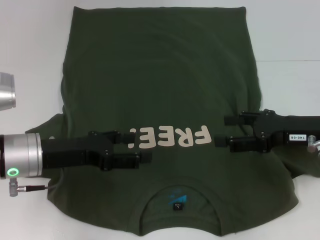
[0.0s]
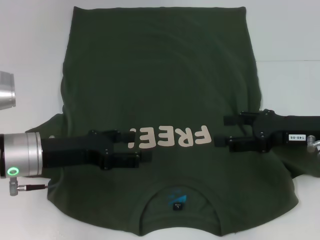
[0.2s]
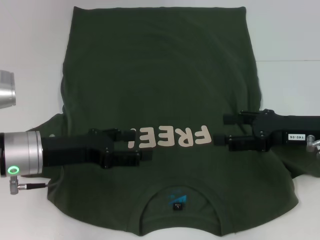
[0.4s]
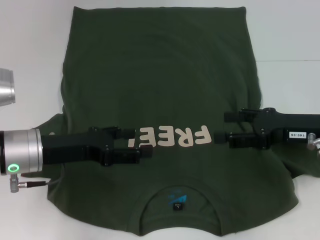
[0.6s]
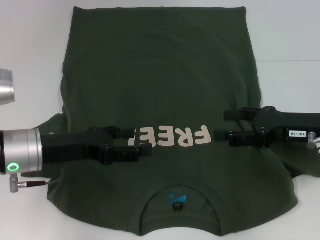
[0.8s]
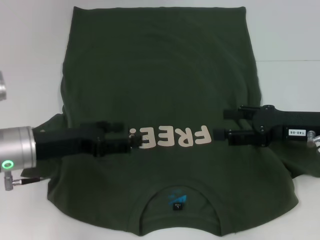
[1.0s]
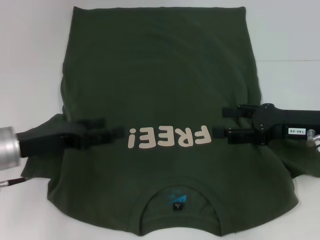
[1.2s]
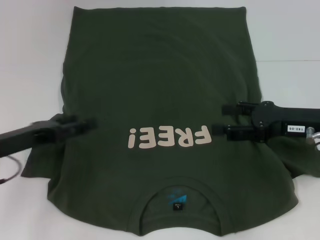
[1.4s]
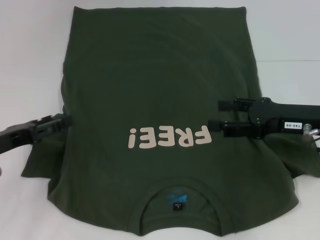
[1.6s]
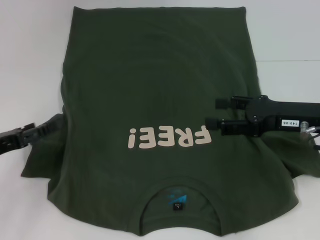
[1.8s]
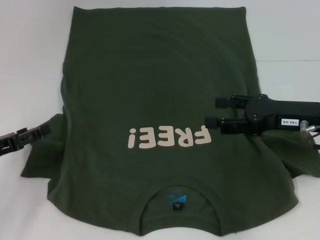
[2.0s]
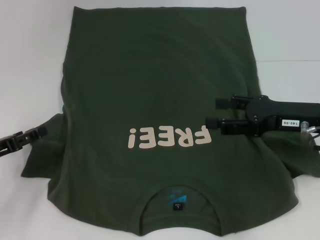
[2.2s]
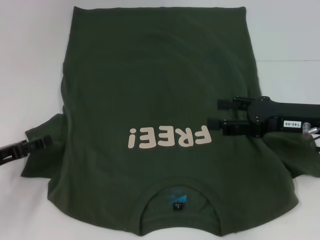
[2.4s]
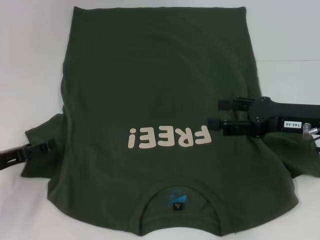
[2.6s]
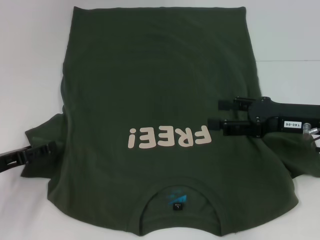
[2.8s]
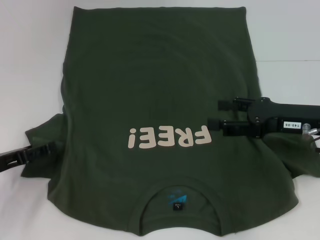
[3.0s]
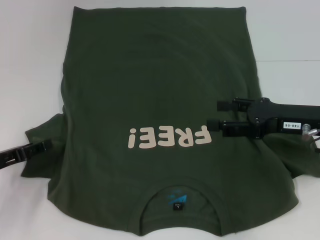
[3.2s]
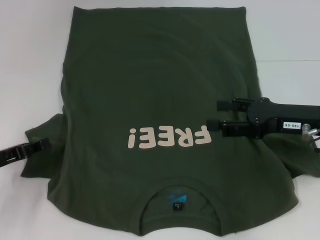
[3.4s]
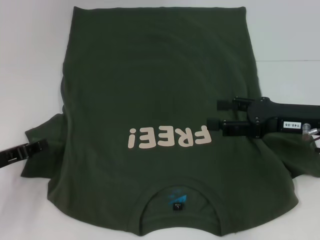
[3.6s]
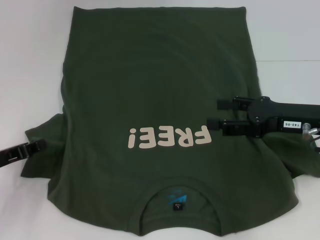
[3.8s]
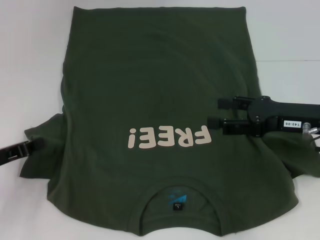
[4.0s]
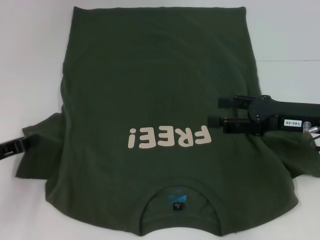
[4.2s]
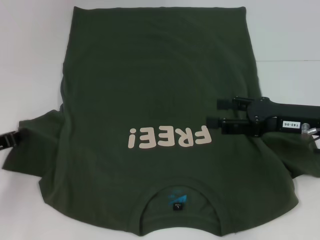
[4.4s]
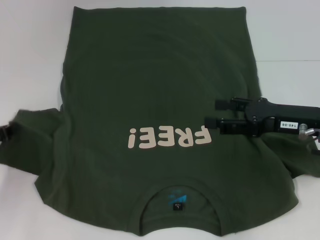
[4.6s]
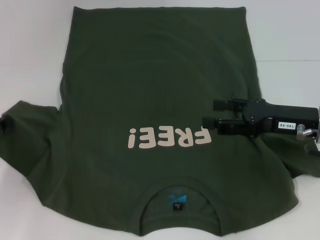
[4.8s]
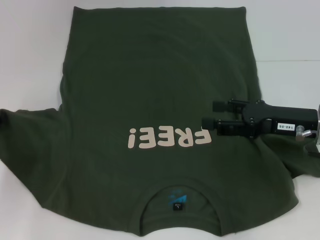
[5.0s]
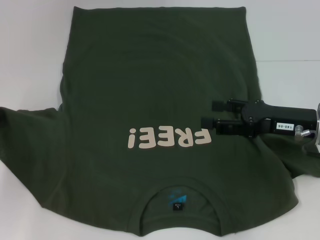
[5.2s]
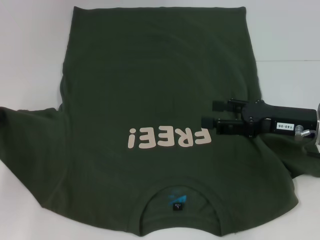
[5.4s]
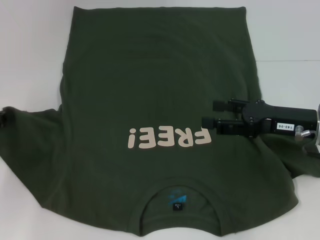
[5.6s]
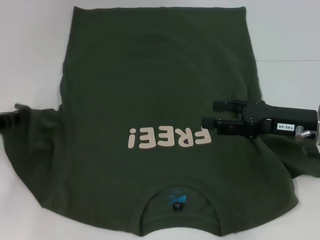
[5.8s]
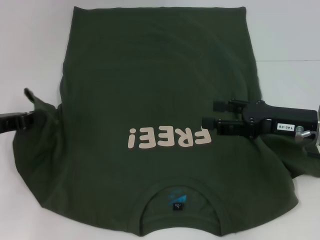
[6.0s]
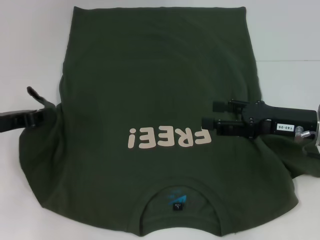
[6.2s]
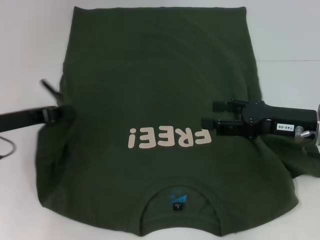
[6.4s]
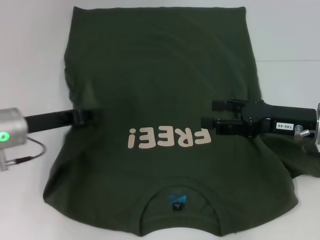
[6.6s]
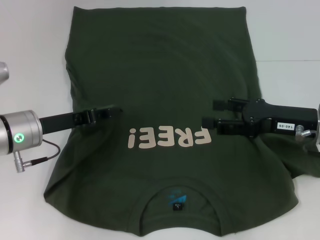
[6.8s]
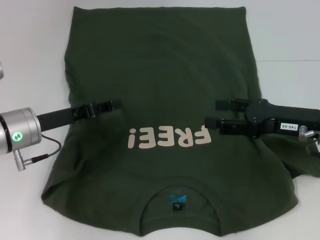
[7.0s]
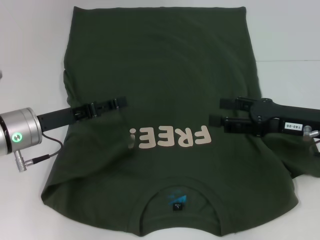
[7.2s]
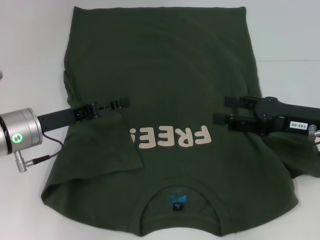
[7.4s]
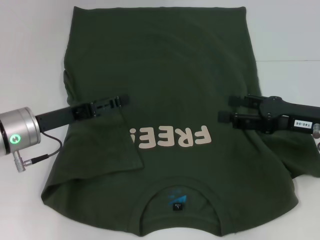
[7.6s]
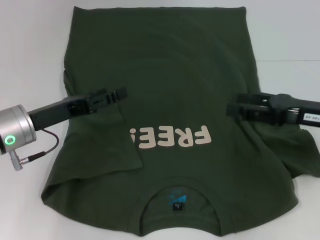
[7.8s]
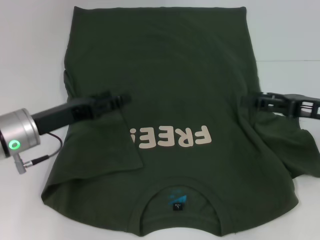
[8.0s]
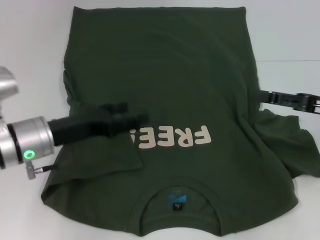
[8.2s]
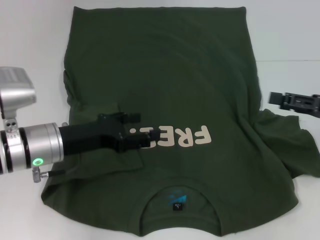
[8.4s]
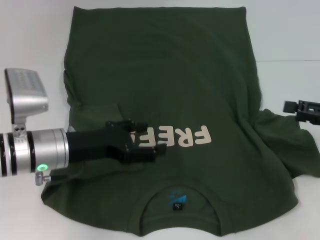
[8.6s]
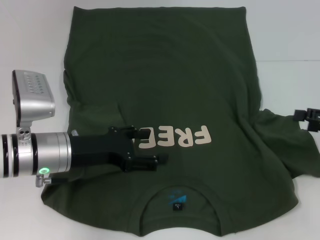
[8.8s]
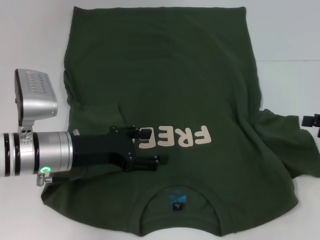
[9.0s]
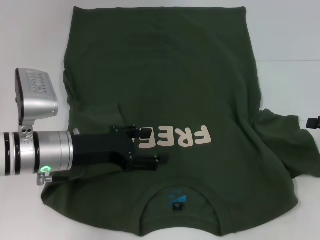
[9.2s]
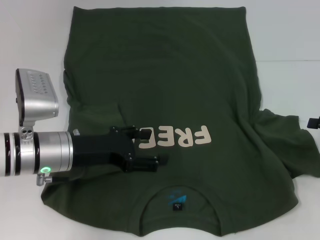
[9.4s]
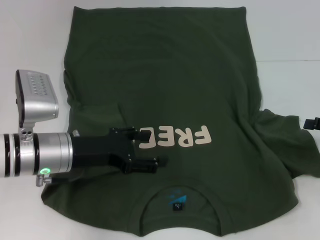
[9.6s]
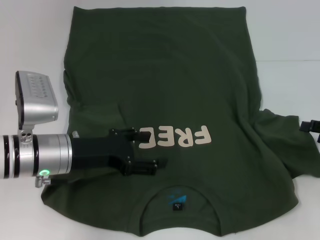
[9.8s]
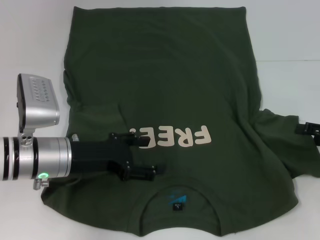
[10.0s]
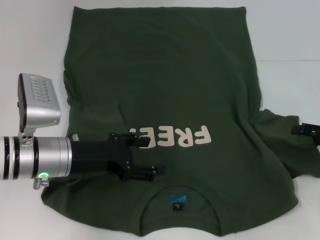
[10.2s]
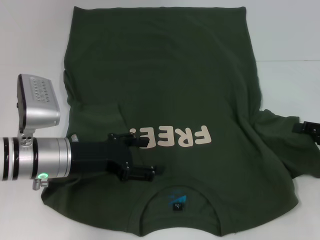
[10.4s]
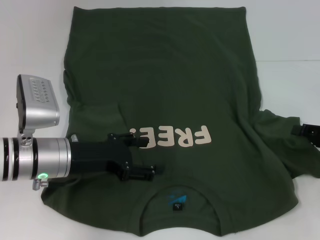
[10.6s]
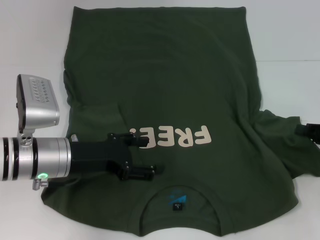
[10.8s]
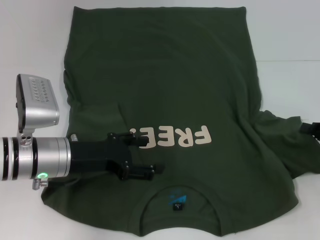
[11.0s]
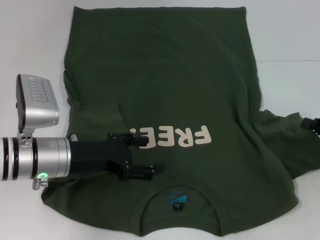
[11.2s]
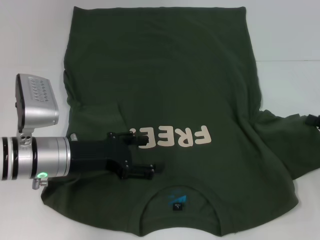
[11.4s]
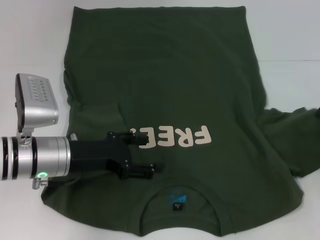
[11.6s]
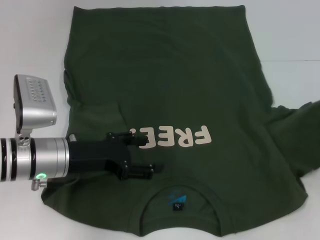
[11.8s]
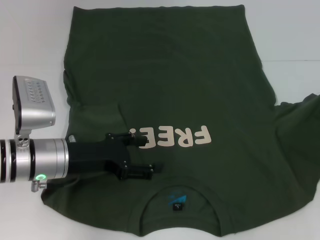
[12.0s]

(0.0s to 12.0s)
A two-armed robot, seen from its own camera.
Step, 0.0s - 7.2s: Fold the bottom left sleeve with your left hand.
0.0s - 1.6s: The left gripper is displaced to the left by roughly 10 cm.
1.6s - 3.0s: The grippers stay close to where they were, moving slightly.
3.0s - 4.4s: The left gripper closes up.
4.4s - 6.0s: The grippers stay close to where they were, moving slightly.
6.0s - 7.6s: The left gripper heads to the right, covering approximately 10 cm, and opens.
7.6s - 9.0s: The right gripper is displaced to the right by roughly 10 cm.
9.0s - 10.4s: The grippers stay close to where they were, moving slightly.
10.4s - 12.0s: The right gripper closes up.

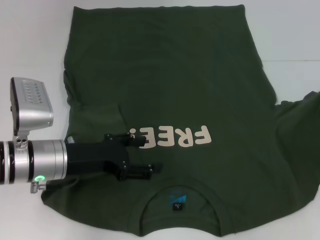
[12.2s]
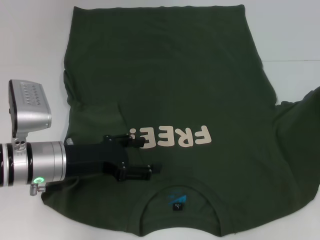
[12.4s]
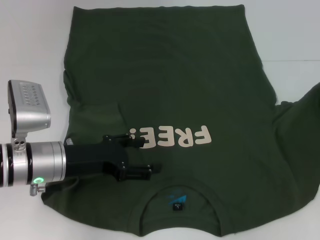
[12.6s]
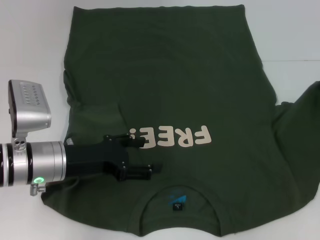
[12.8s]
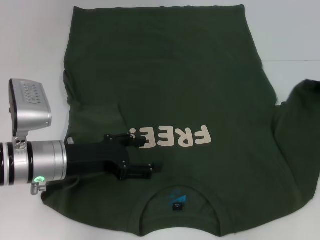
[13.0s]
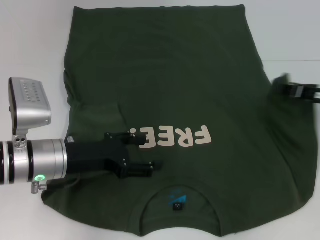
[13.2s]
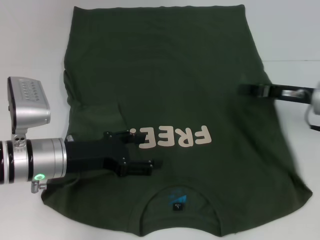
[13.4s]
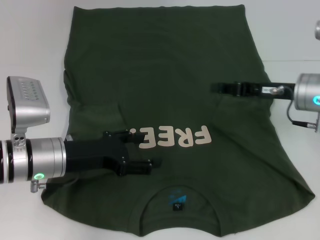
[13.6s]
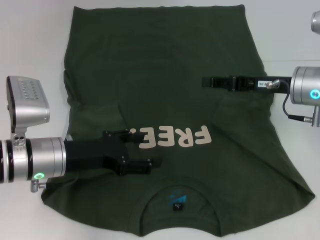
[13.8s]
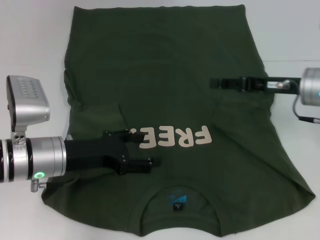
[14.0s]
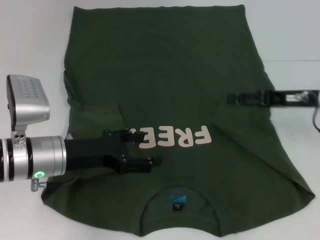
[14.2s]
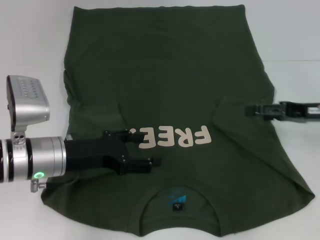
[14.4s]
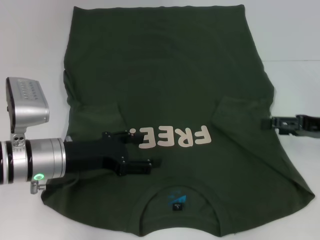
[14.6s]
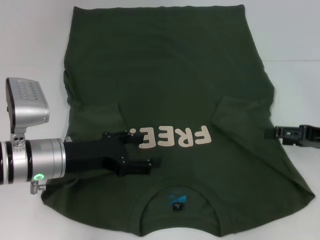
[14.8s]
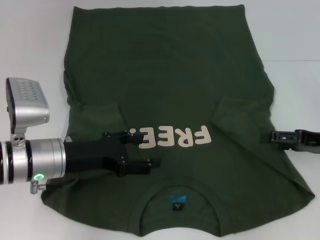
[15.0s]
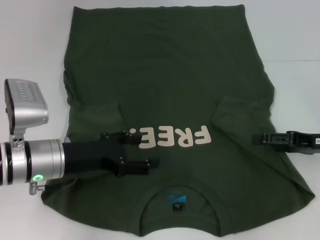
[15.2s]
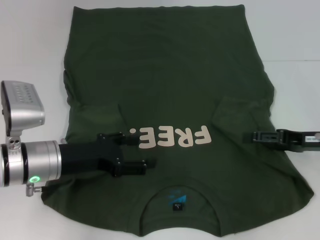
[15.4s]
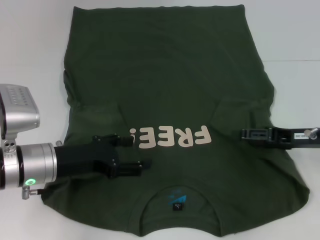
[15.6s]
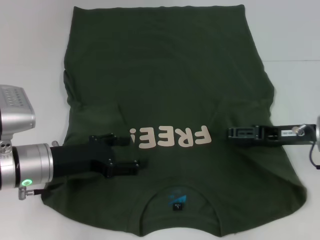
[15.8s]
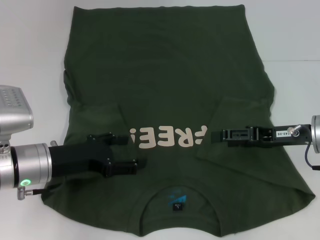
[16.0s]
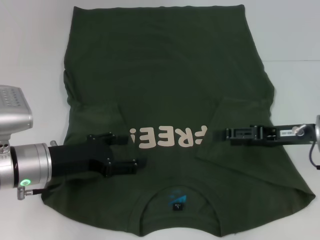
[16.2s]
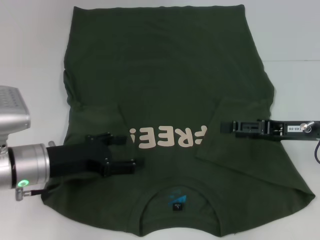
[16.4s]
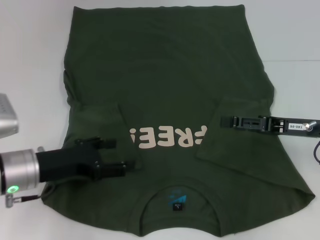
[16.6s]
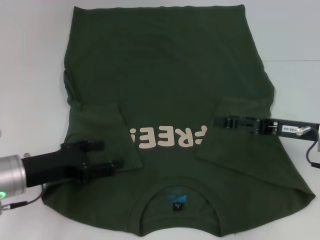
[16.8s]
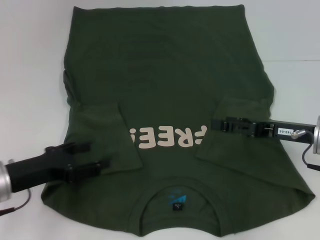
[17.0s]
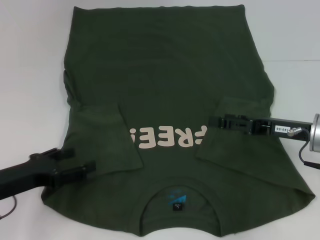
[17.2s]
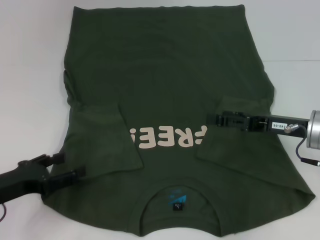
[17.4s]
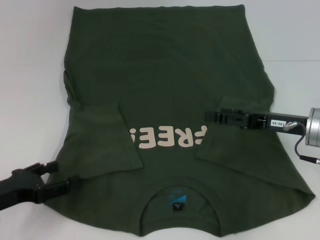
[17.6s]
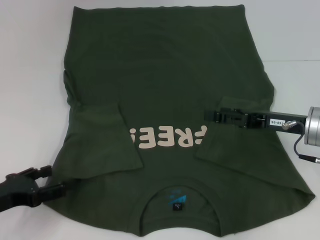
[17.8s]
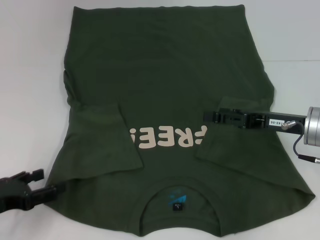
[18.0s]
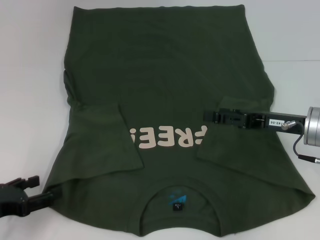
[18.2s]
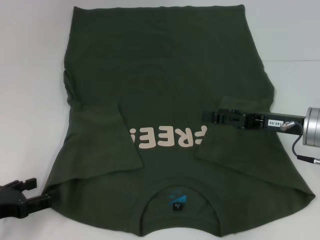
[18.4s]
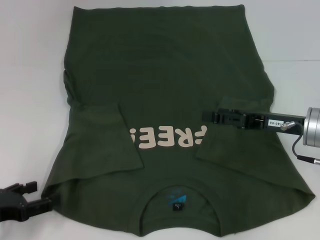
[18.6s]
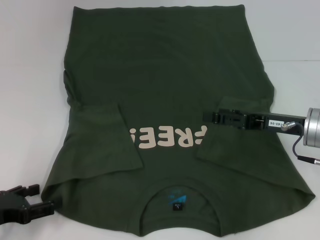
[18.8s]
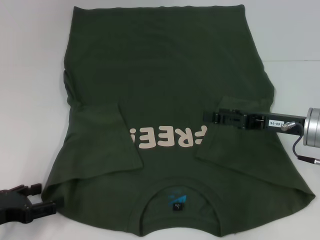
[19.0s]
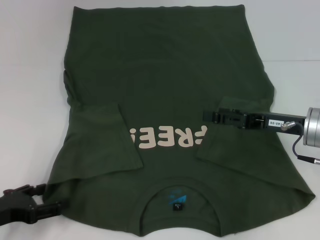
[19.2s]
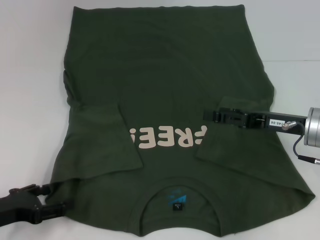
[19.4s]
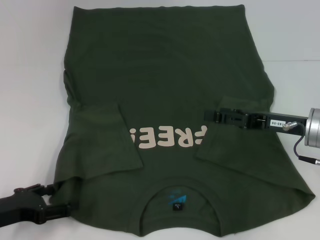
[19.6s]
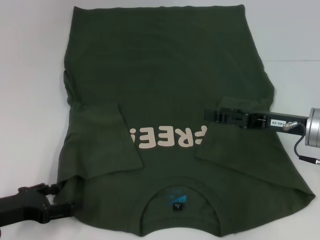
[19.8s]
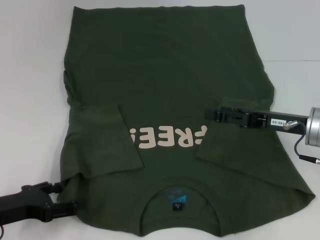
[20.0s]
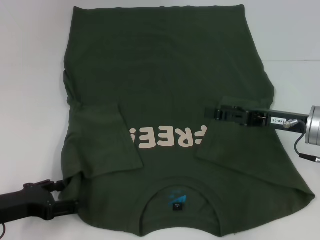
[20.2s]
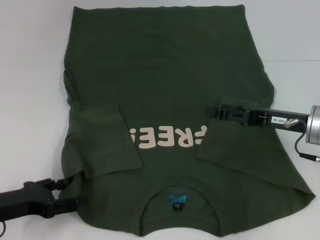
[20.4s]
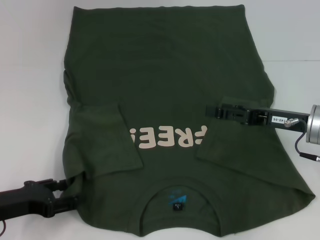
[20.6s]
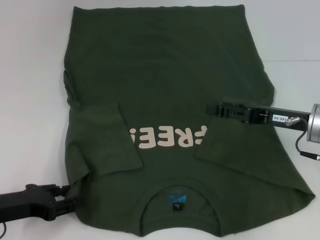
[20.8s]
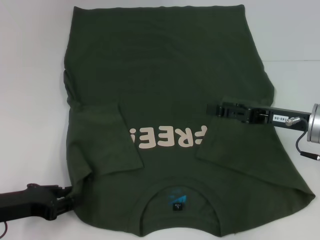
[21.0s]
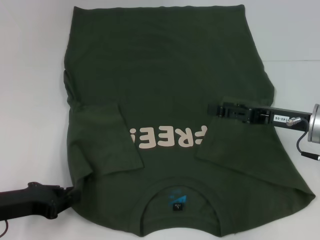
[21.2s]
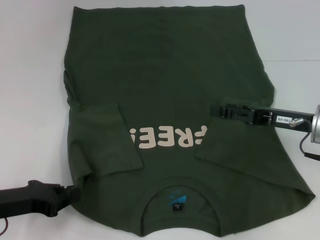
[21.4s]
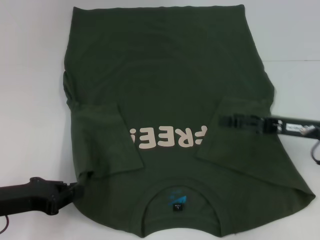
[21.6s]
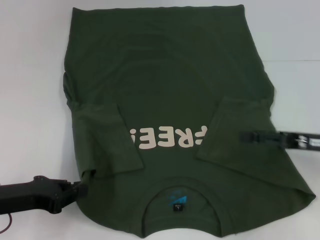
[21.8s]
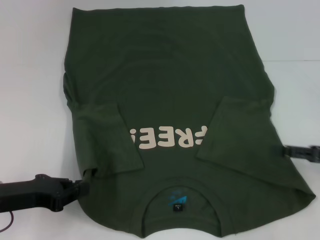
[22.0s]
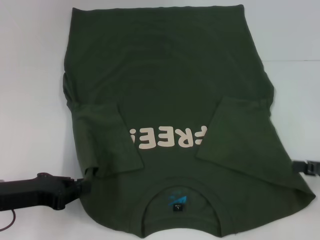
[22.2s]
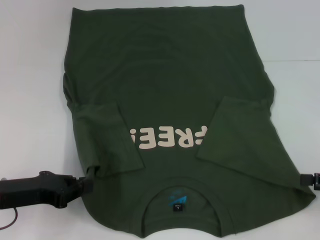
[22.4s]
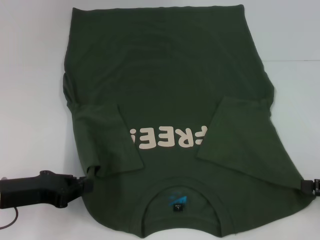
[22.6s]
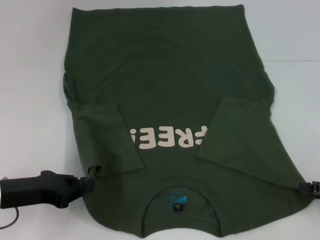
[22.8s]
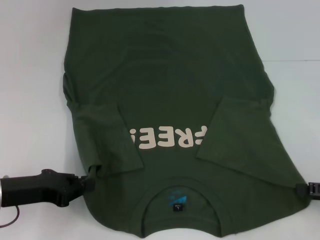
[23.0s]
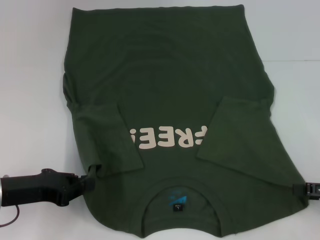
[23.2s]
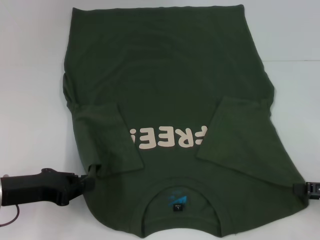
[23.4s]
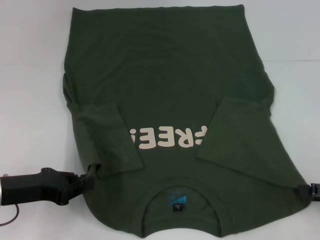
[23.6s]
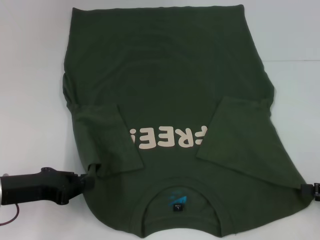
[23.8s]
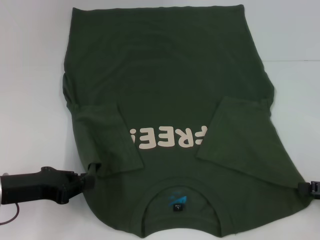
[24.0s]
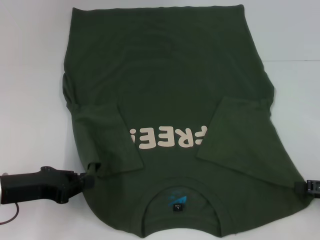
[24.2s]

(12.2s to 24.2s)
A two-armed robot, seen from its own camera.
Step, 13.6s - 21.4s: Grab the bottom left corner with your left hand.
12.2s - 13.8s: The right gripper is displaced to the left by approximately 15 cm.
13.8s - 15.2s: The right gripper is displaced to the right and backward by some 10 cm, and opens.
16.6s - 18.2s: The left gripper goes approximately 10 cm to the left and backward.
18.2s - 19.8s: The grippers move only a little.
19.8s - 21.2s: The left gripper closes up.
21.2s - 22.6s: The left gripper closes up. Meanwhile the right gripper goes roughly 15 cm to the right and backward.
22.6s - 24.2s: Neither gripper changes place.
